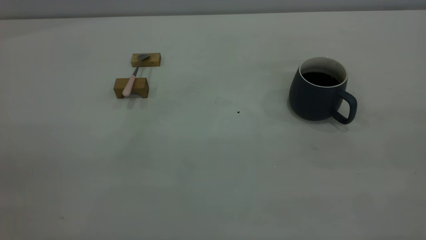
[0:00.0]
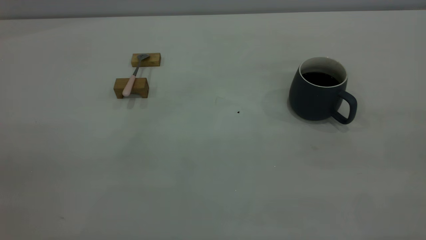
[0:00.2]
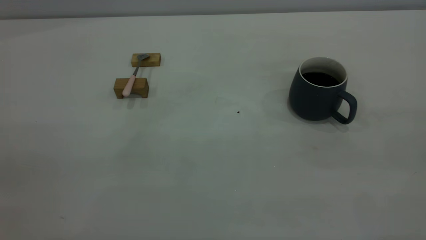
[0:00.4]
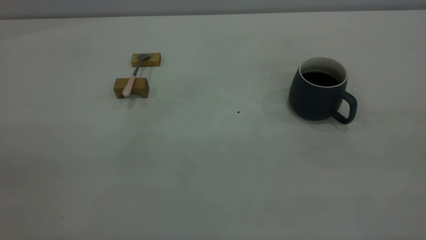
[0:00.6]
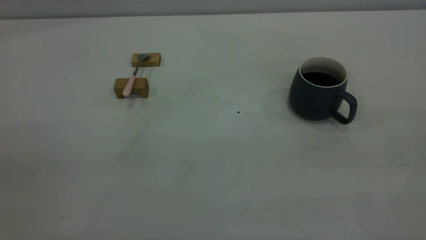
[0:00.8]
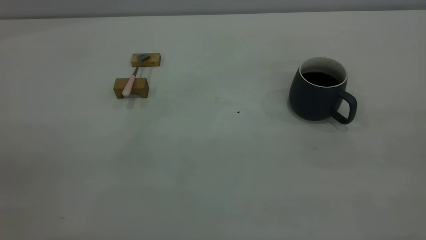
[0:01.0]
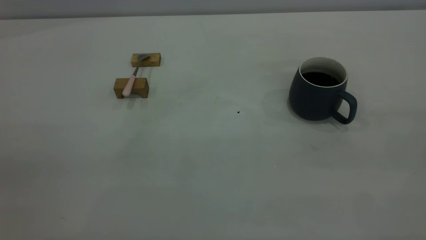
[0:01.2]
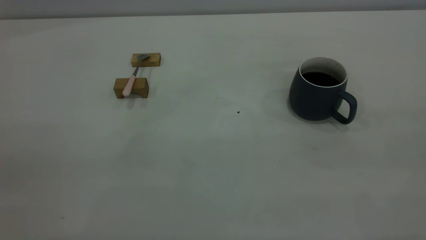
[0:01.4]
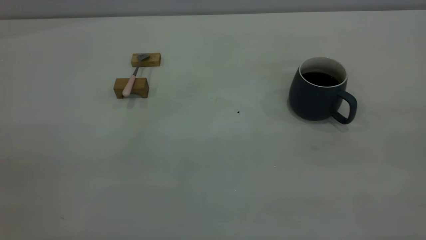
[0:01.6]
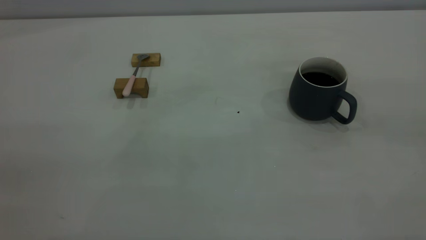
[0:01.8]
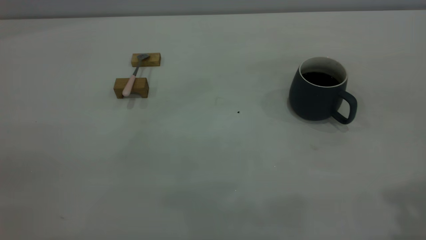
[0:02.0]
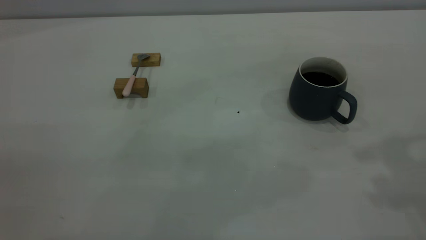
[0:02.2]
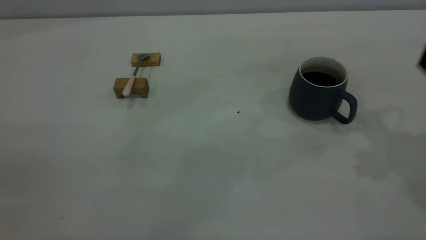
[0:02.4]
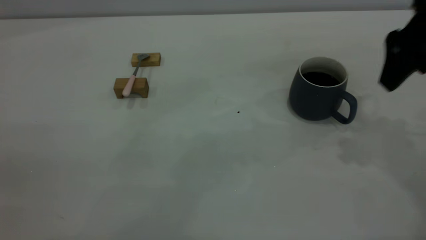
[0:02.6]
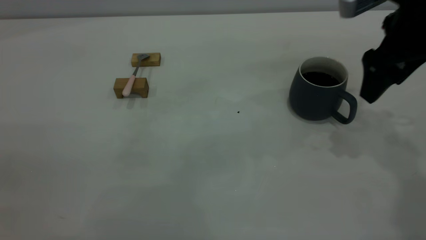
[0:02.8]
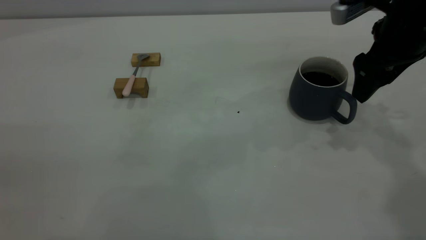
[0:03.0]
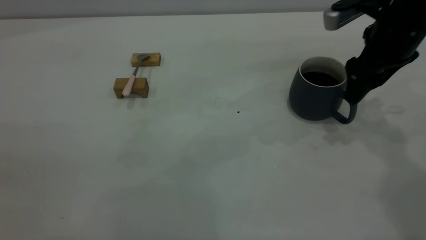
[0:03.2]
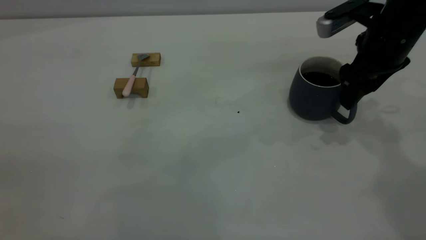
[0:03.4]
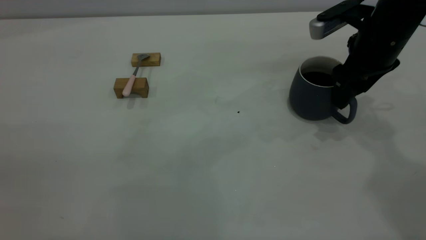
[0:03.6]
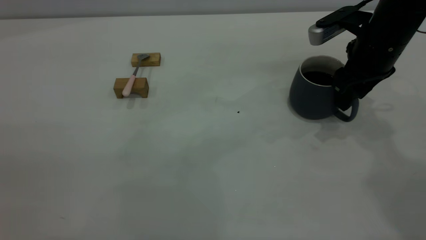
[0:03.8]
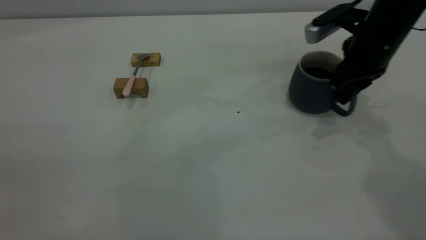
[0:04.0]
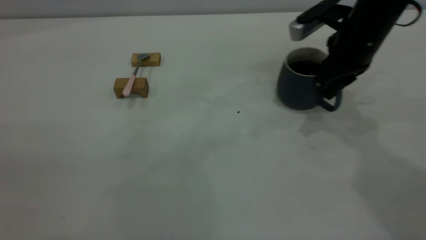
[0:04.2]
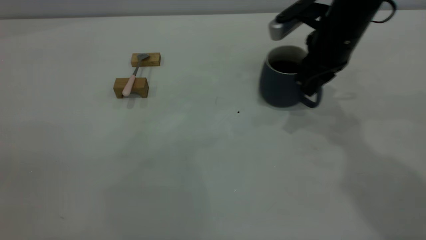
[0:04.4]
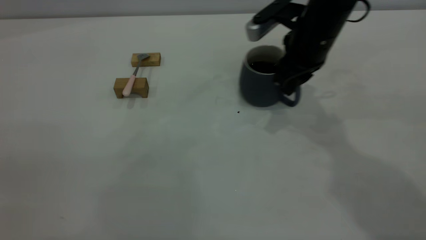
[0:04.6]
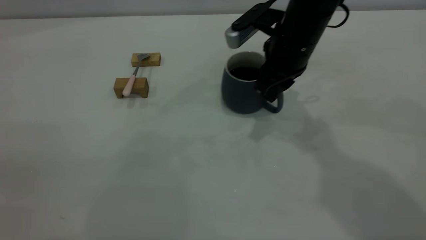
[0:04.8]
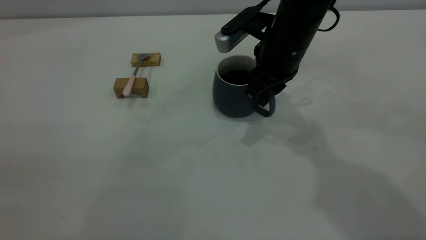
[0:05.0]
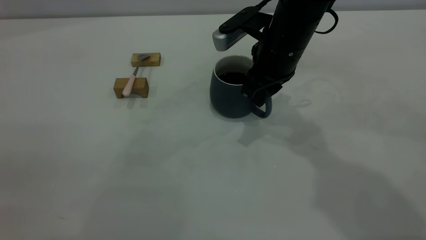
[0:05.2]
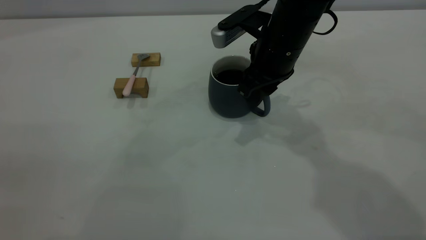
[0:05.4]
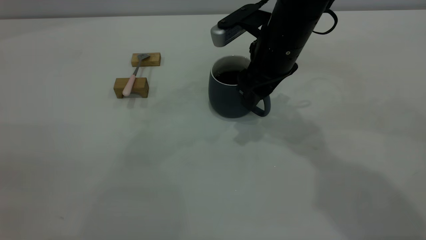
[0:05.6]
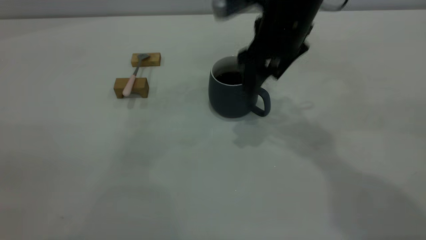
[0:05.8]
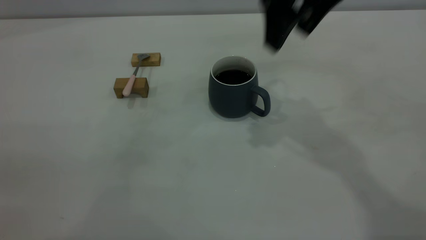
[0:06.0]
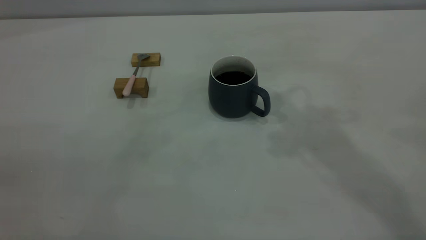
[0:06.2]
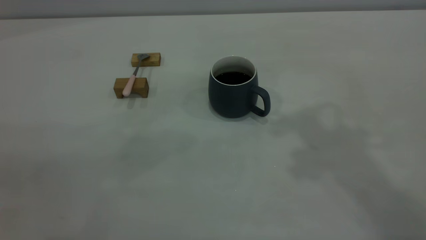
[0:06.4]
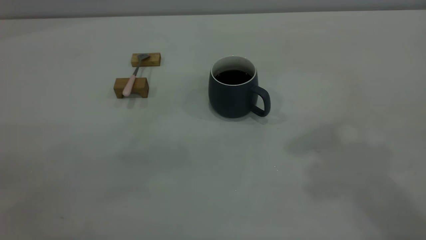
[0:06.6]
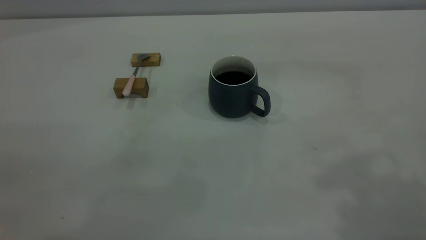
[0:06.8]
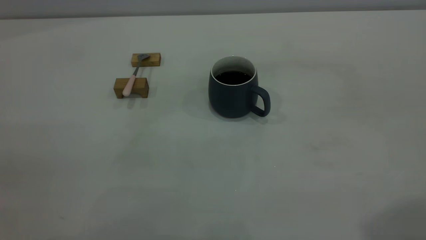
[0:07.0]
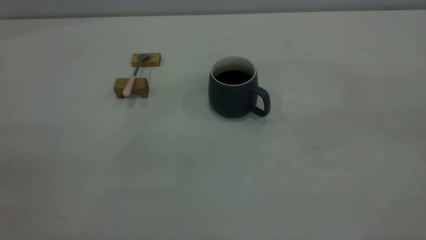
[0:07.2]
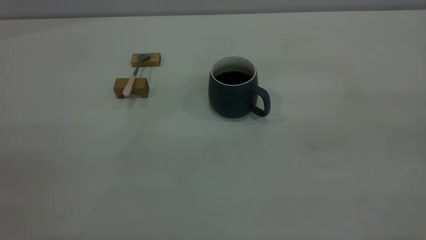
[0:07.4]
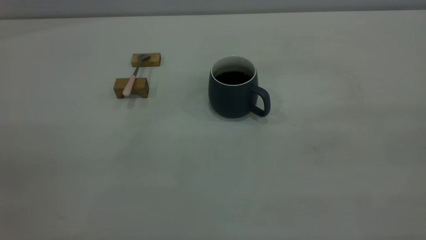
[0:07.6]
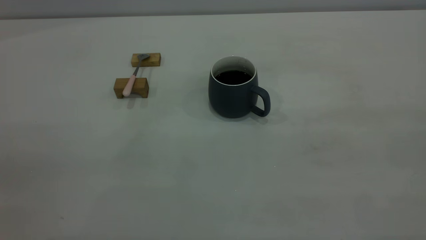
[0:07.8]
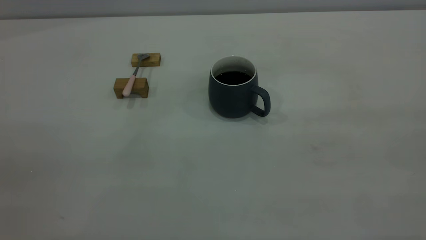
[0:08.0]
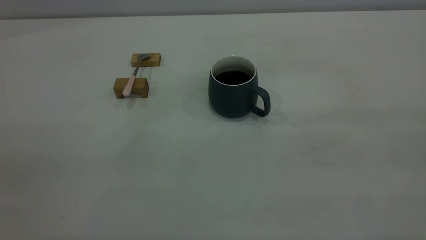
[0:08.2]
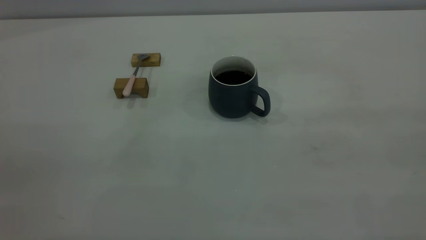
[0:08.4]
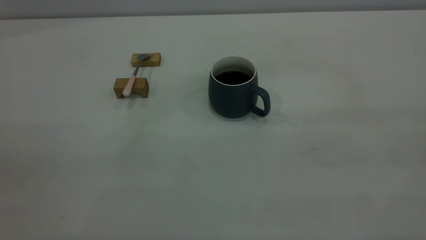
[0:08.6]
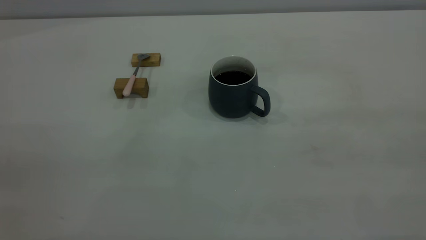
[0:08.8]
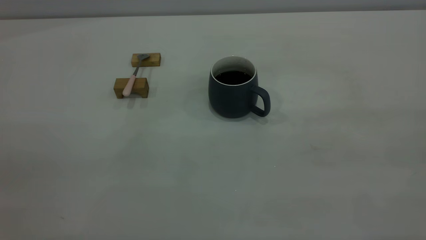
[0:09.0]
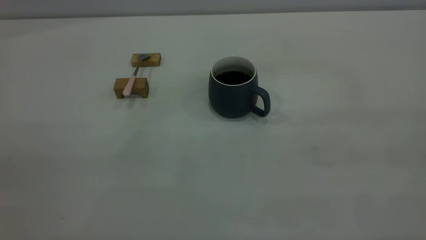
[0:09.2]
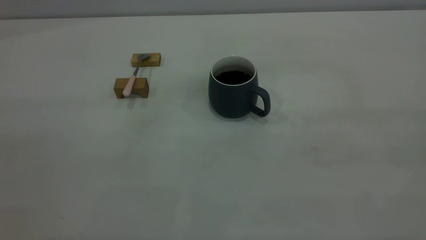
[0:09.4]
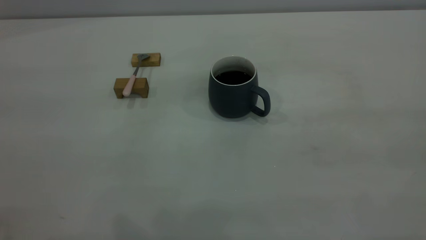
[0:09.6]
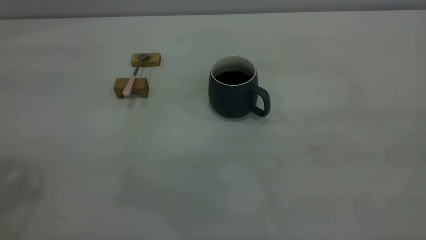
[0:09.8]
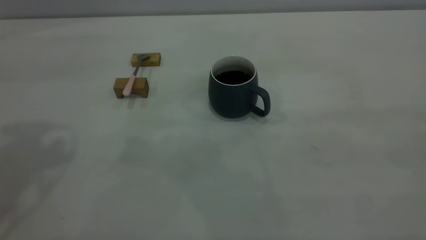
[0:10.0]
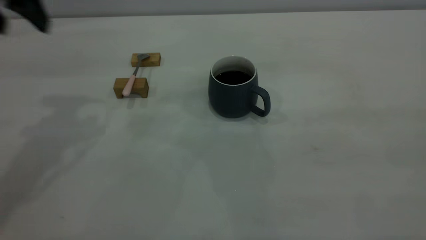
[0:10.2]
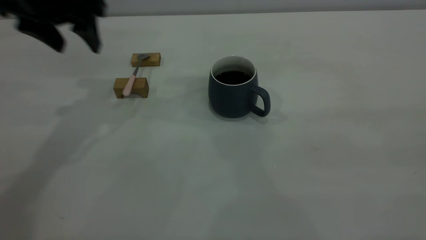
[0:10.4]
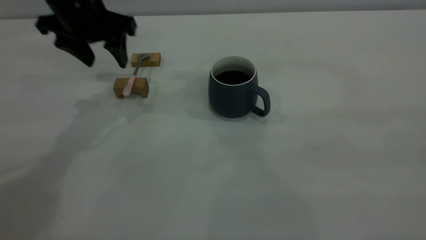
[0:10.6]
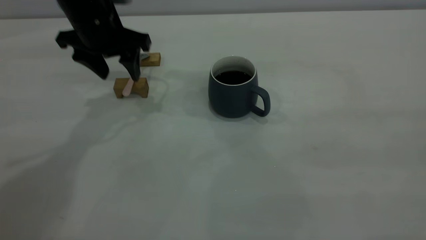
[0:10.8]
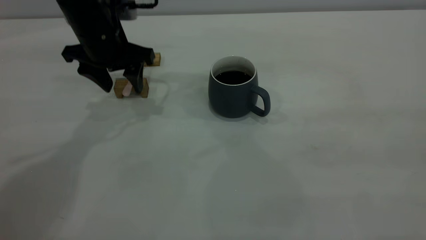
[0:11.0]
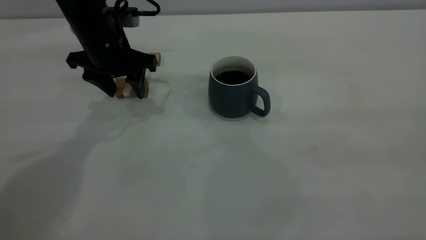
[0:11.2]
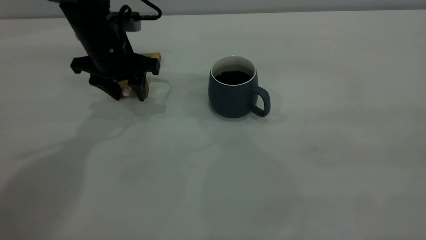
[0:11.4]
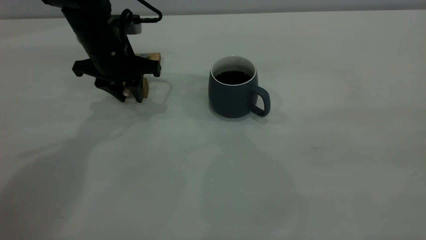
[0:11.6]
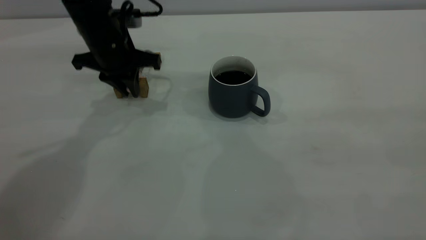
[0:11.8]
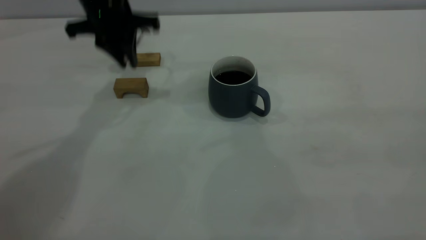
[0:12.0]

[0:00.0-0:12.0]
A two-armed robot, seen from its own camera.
Step, 0:00.0 to 0:05.8: Move the cup with coffee to the center of view.
Step, 0:06.0 to 0:11.8: Pick up the spoon.
0:00.0 to 0:01.6: The two grippers keep their place.
0:01.6 to 0:03.0: The right gripper moves forward and downward, some 40 cm.
0:03.0 to 0:04.4: The right gripper goes roughly 10 cm to the left, and closes.
0:04.4 to 0:06.0: The right gripper goes roughly 15 cm upward, and opens its fingers.
0:06.0 to 0:07.6: The right gripper shifts about 40 cm backward and to the right.
0:09.0 to 0:10.4: The left gripper is displaced forward by approximately 40 cm.
0:10.4 to 0:12.0: The left gripper is displaced forward by some 5 cm, goes downward and returns, about 10 cm each way, and closes its fingers.

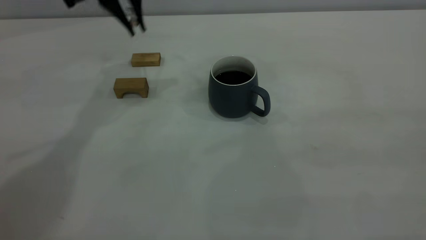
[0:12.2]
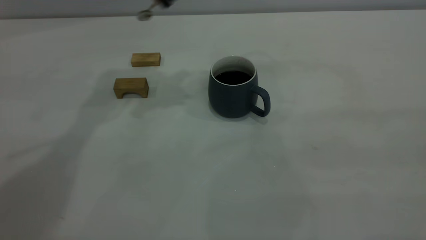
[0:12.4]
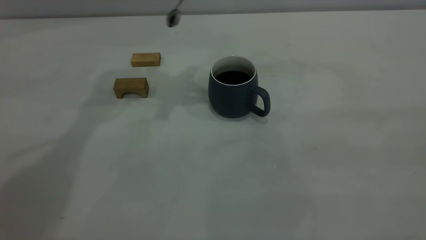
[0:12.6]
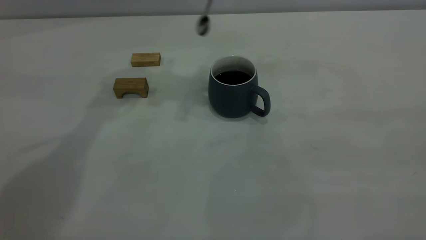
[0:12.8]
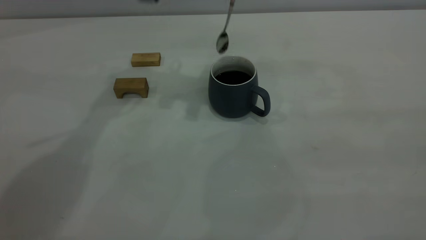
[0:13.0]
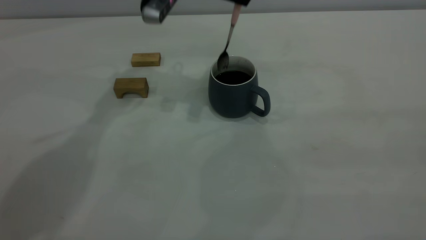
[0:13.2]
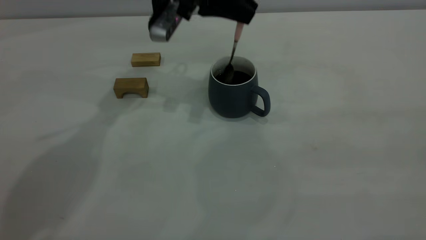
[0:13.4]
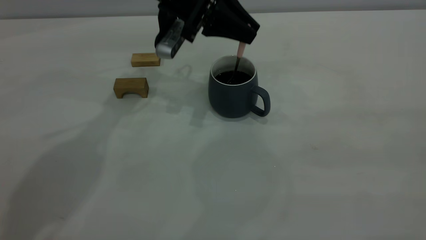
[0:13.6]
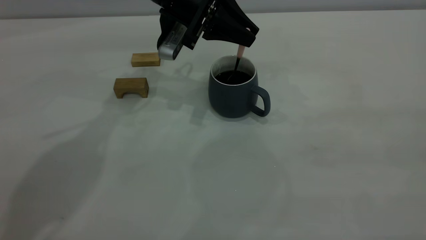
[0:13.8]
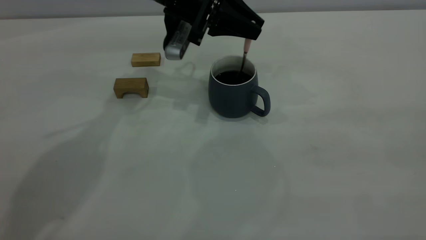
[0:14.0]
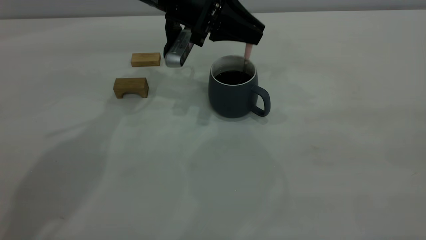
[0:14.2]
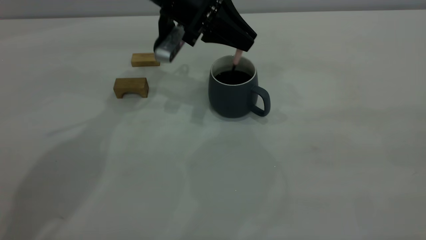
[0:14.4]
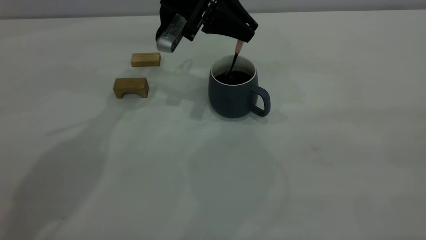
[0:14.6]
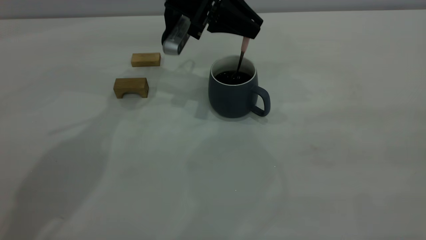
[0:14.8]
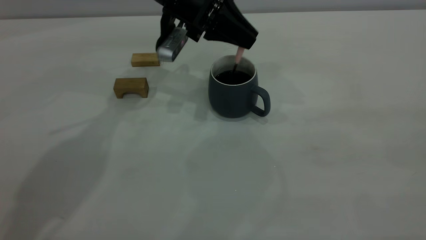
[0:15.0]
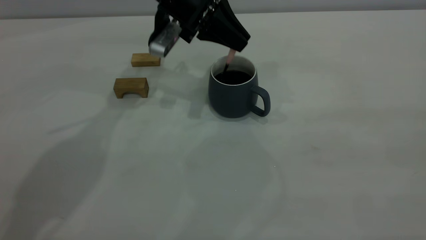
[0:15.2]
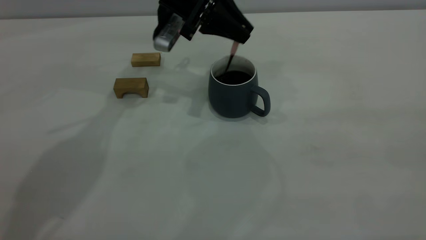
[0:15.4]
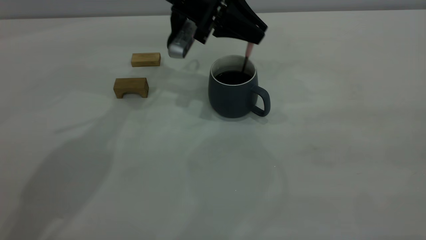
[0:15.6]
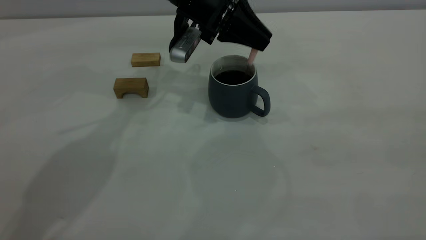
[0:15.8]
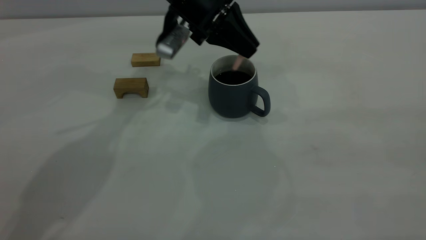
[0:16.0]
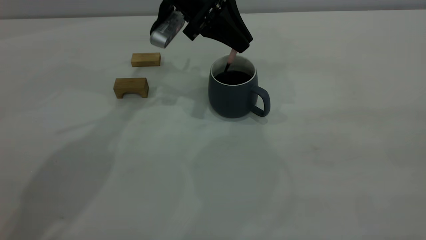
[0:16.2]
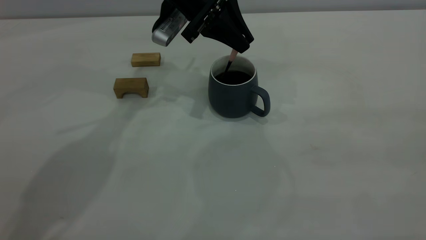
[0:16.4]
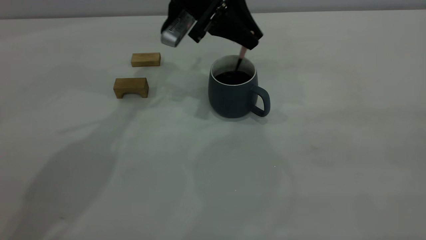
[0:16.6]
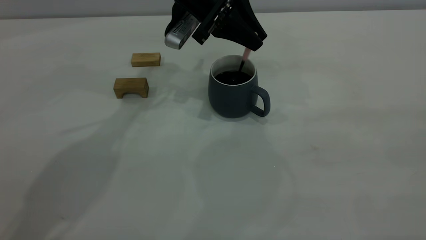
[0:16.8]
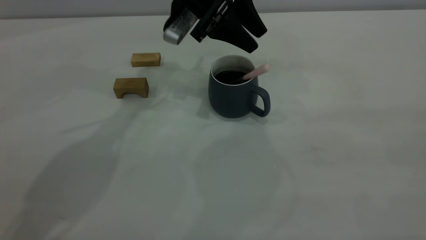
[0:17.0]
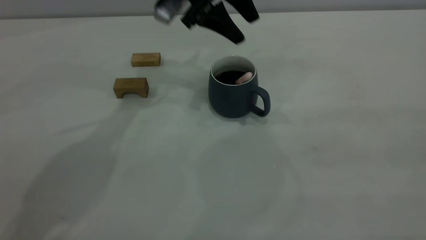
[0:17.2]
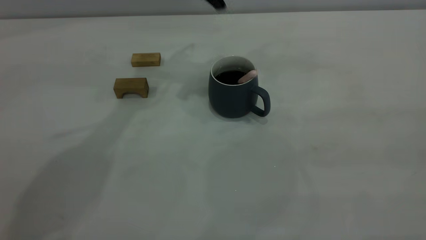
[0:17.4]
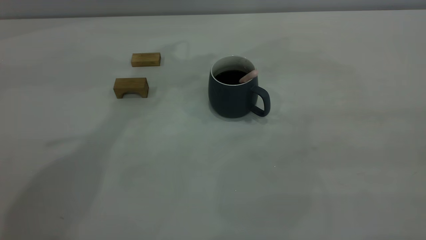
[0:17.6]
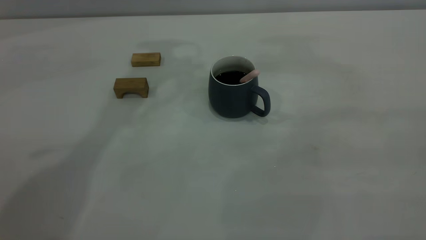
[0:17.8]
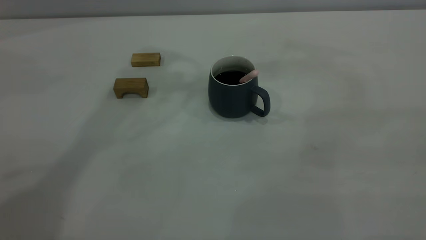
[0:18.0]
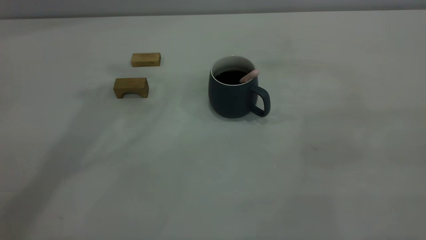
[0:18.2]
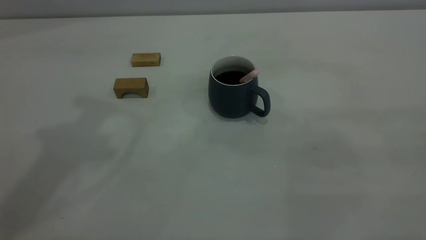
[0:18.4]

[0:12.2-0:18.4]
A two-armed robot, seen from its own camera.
Step, 0:12.2 to 0:17.2: Stir the coffee in the cup.
0:12.2 to 0:13.8: The left gripper goes roughly 10 cm downward and to the right.
0:13.8 to 0:16.8: The grippers make only small movements.
0:16.8 to 0:18.4: The left gripper moves upward, backward and to the left, about 35 cm, and opens up.
